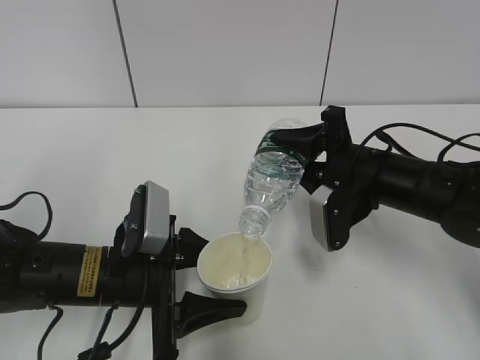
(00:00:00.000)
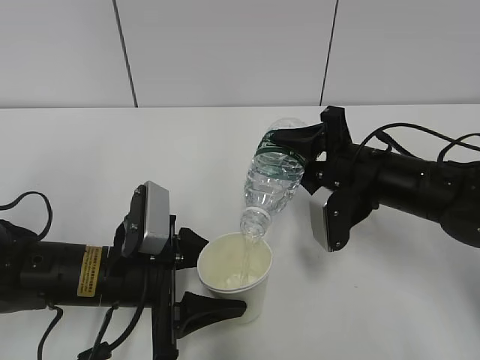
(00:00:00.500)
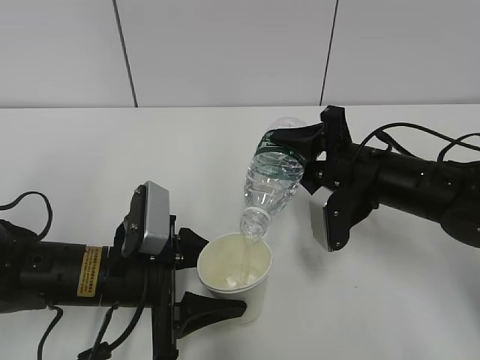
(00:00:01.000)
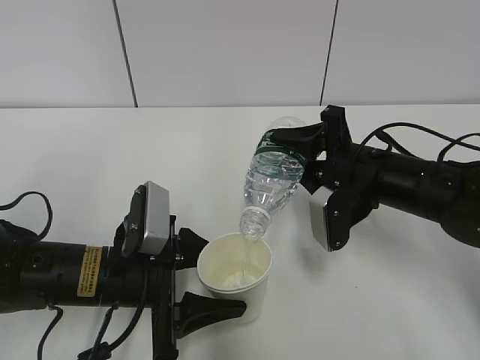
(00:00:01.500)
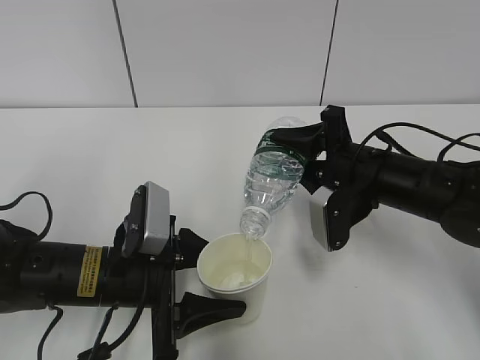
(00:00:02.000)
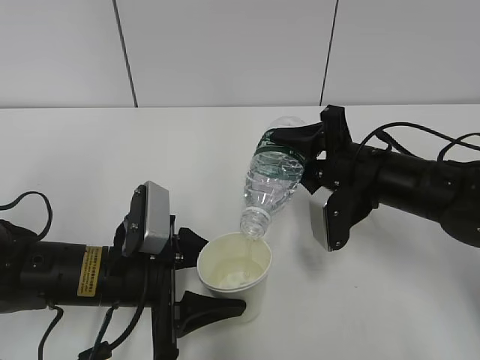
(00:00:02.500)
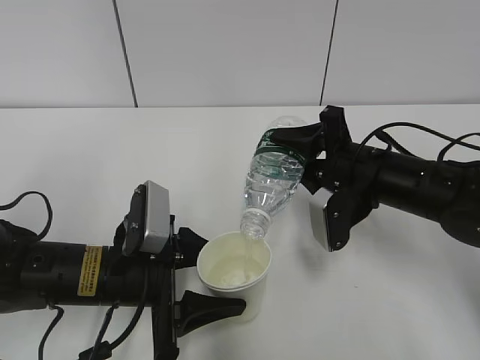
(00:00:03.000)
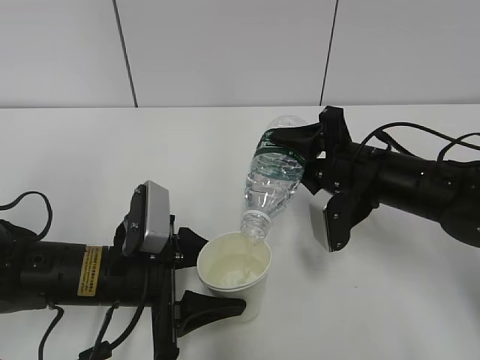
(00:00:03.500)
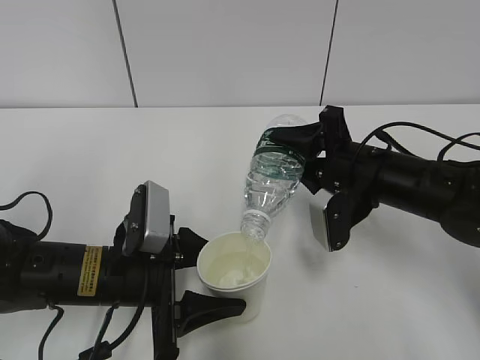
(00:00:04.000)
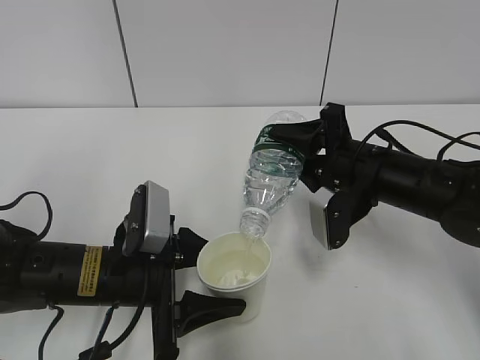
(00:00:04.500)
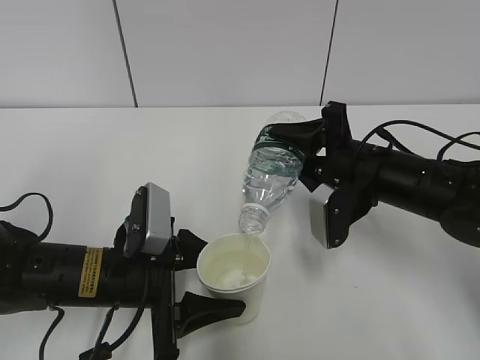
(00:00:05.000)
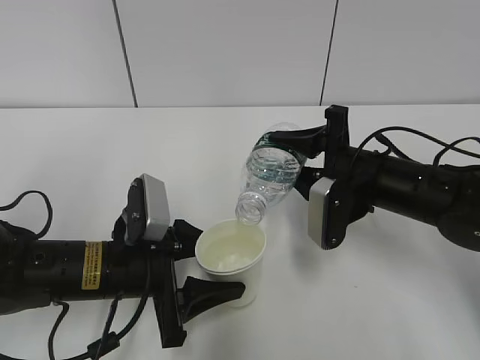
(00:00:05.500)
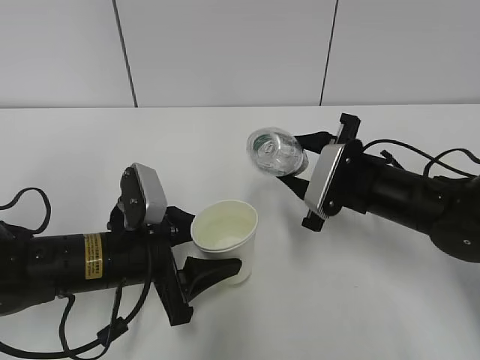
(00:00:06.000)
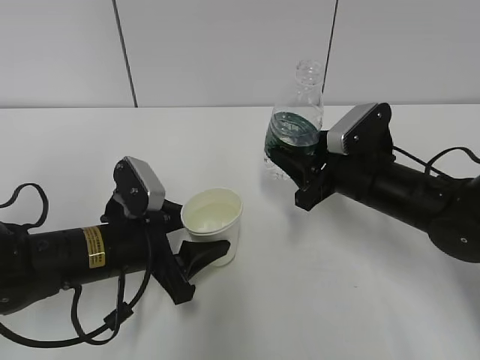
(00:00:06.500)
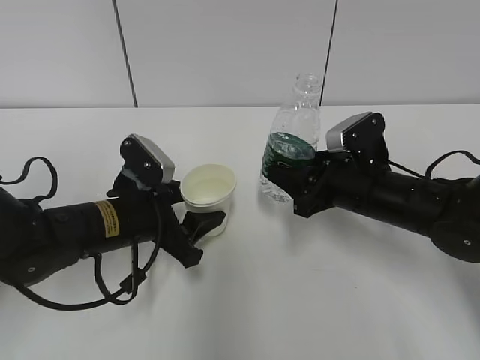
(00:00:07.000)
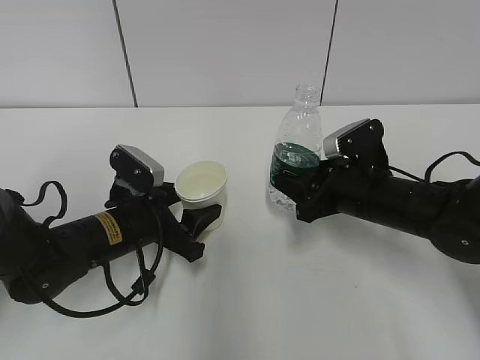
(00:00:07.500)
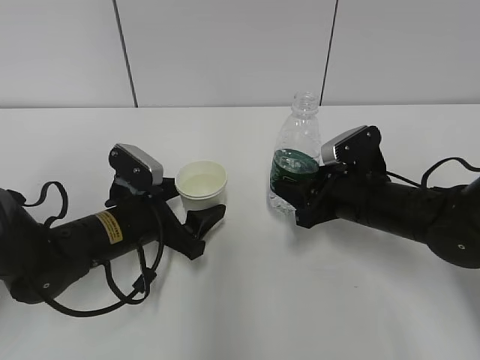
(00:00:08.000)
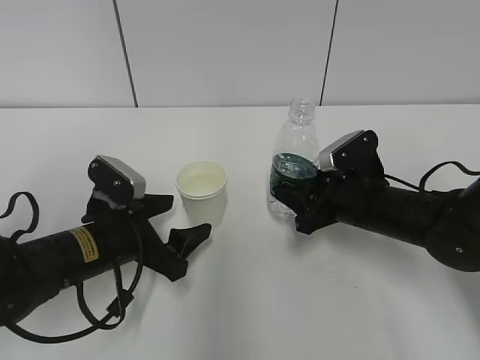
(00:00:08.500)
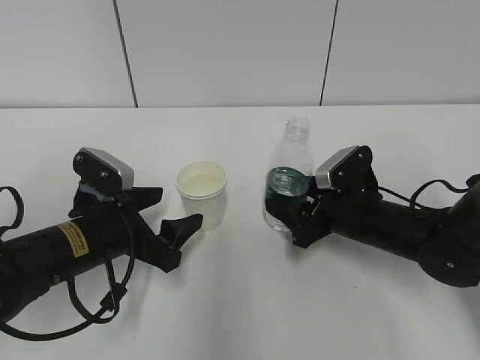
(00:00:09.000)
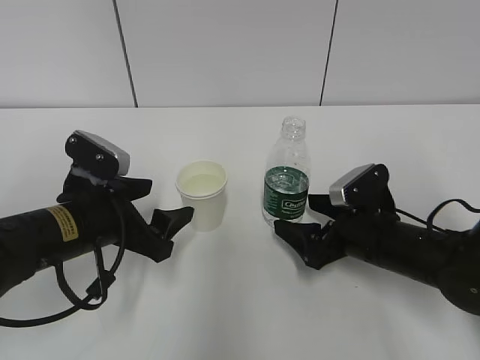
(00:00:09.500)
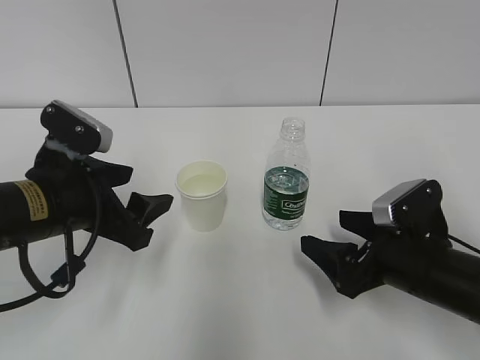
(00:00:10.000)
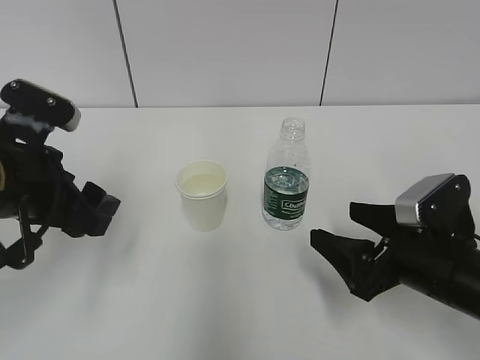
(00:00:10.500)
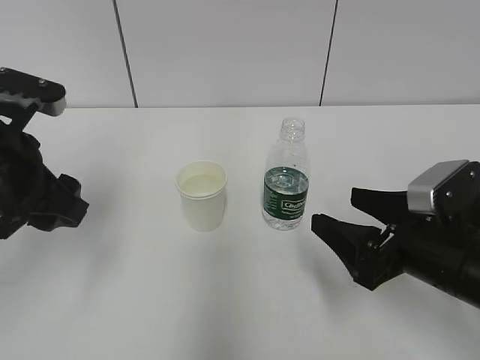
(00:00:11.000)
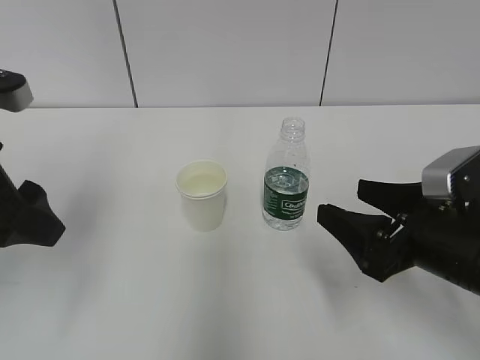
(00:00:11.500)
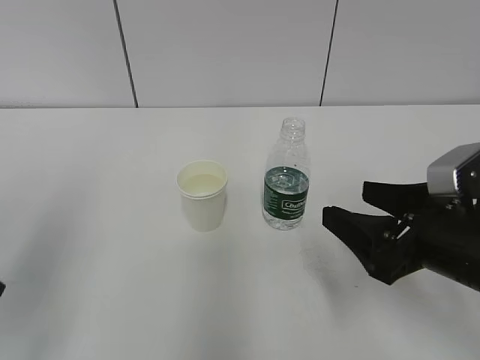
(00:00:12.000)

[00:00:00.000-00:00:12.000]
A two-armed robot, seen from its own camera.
00:00:00.000 to 00:00:04.000: Both grippers stay put.
00:00:06.000 to 00:00:08.000: The left gripper shifts about 5 cm forward, and opens its fingers.
00:00:08.000 to 00:00:10.000: The left gripper travels upward and backward by roughly 10 cm, while the right gripper is displaced backward by some 10 cm, and opens.
00:00:10.000 to 00:00:12.000: The right gripper heads upward, covering roughly 5 cm, while the left gripper is displaced backward, upward and to the left by approximately 20 cm.

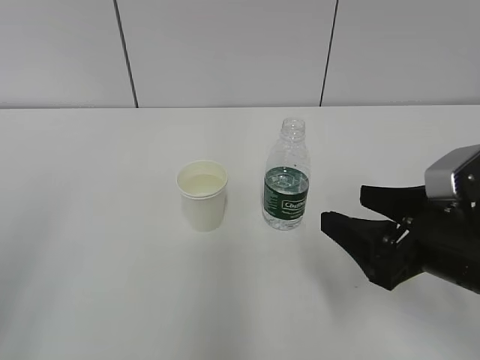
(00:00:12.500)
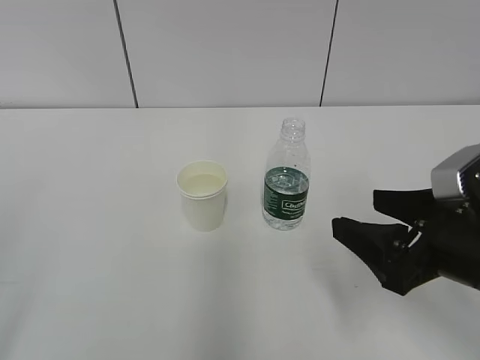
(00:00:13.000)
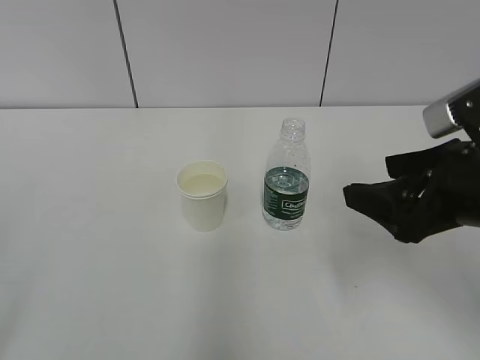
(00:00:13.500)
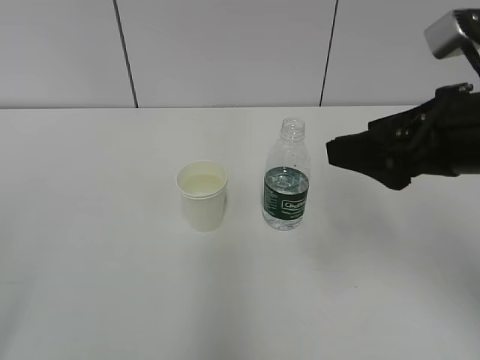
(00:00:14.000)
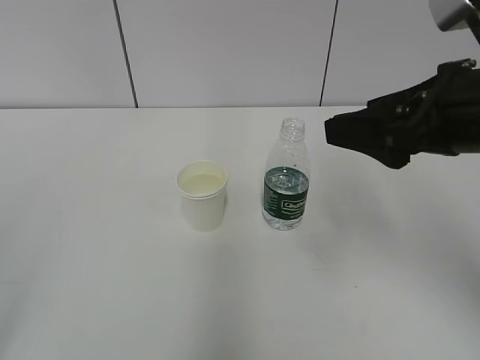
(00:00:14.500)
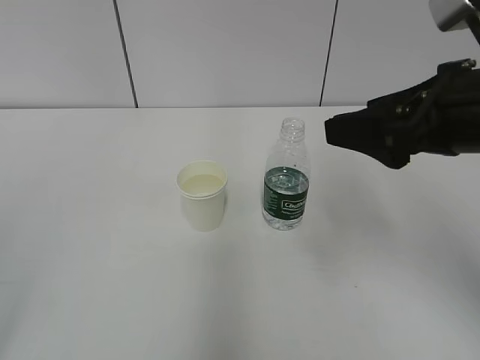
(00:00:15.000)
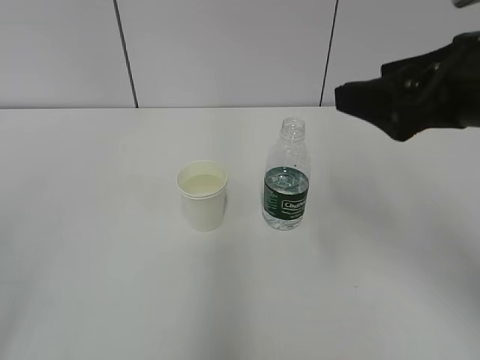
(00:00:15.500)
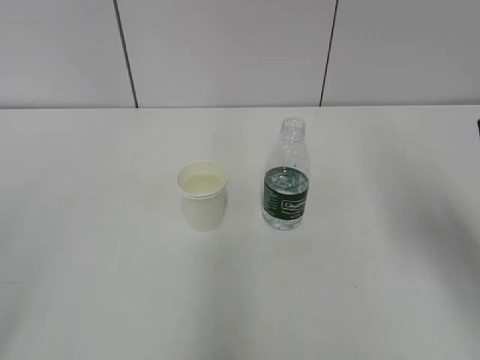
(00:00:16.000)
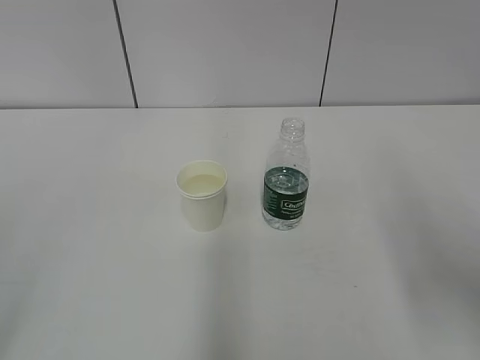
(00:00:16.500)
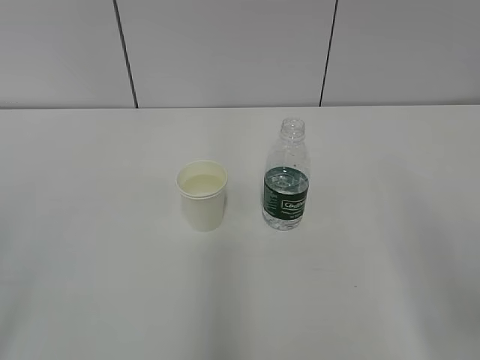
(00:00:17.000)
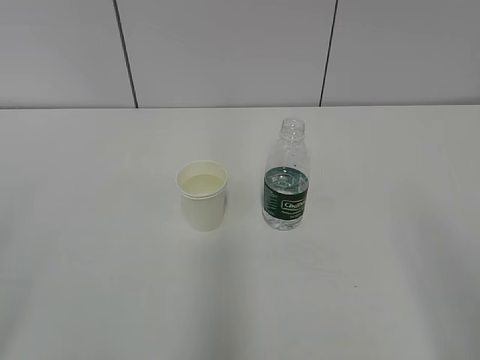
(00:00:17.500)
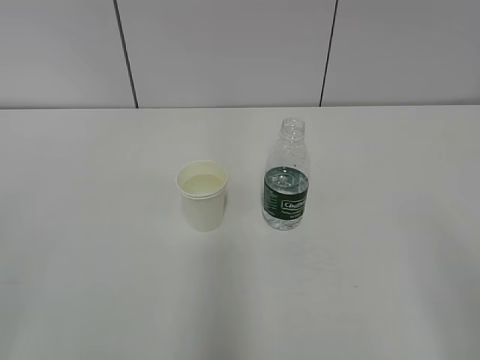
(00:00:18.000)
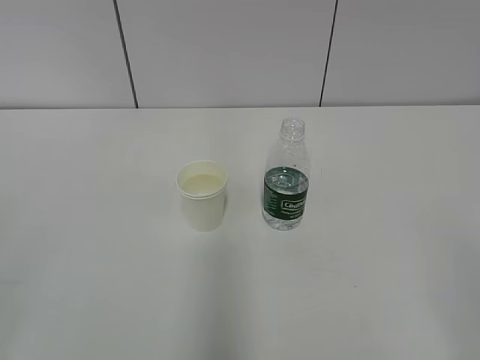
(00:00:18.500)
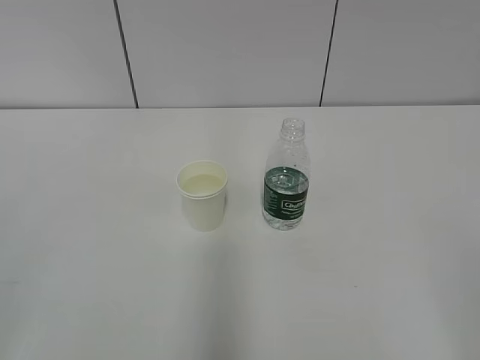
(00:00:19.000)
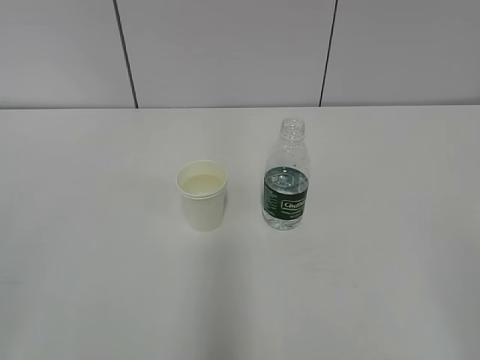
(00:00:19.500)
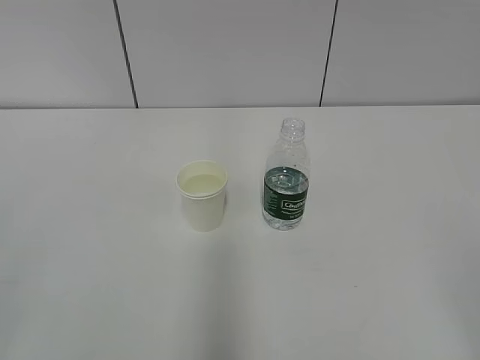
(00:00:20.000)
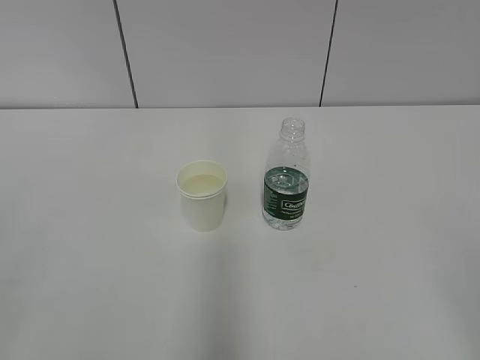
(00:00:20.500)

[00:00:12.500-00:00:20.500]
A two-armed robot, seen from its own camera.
00:00:12.500 to 00:00:14.500: The right gripper moves upward, approximately 15 cm.
00:00:14.500 to 00:00:16.500: The right gripper moves backward and to the right, roughly 10 cm.
00:00:16.500 to 00:00:18.500: The right gripper shifts about 15 cm backward.
